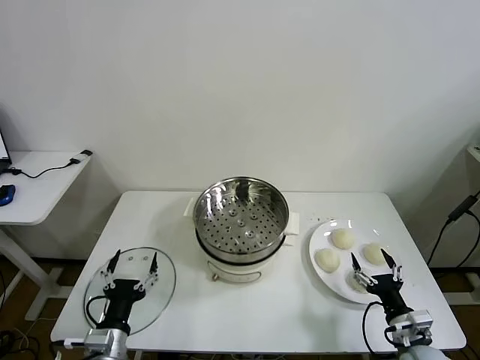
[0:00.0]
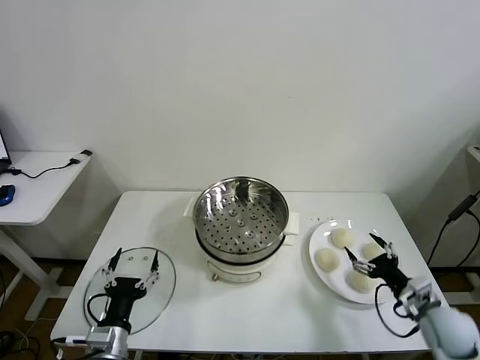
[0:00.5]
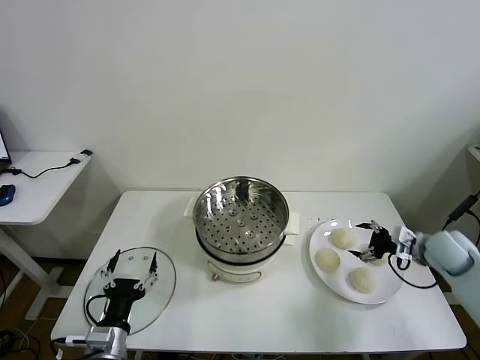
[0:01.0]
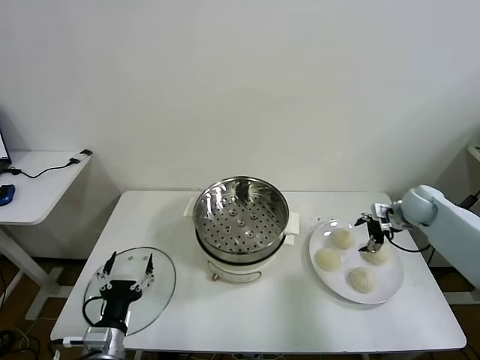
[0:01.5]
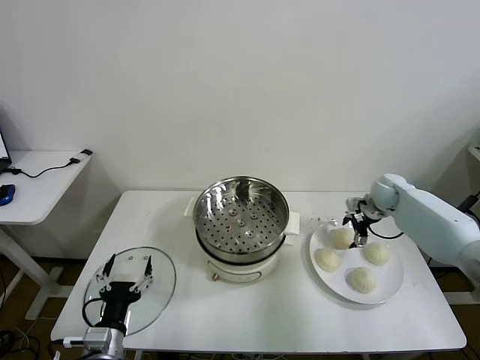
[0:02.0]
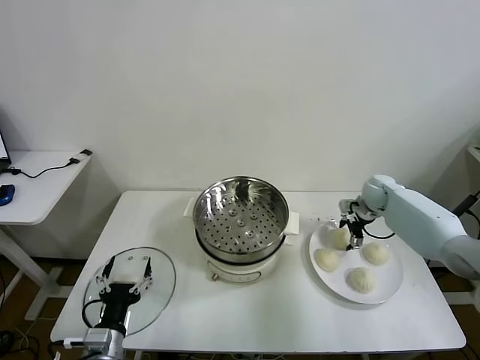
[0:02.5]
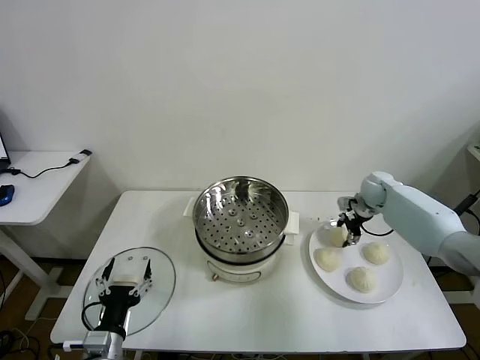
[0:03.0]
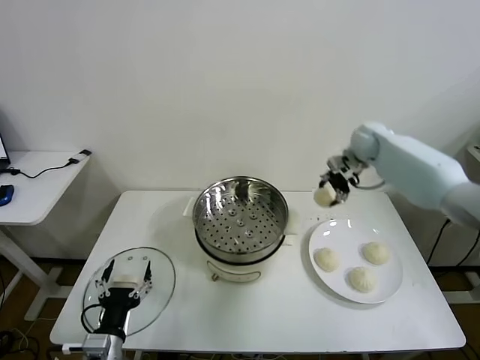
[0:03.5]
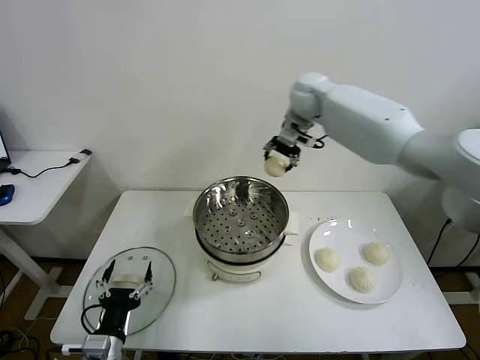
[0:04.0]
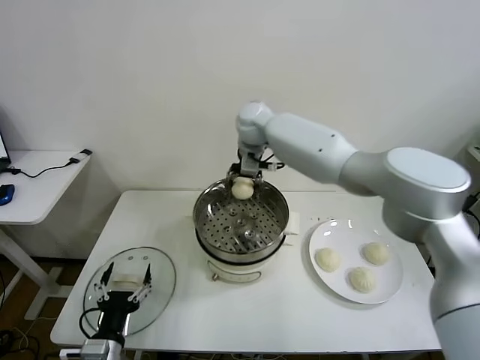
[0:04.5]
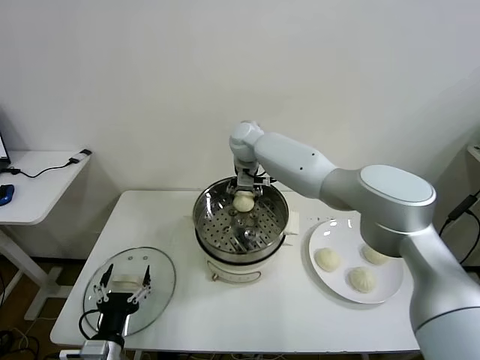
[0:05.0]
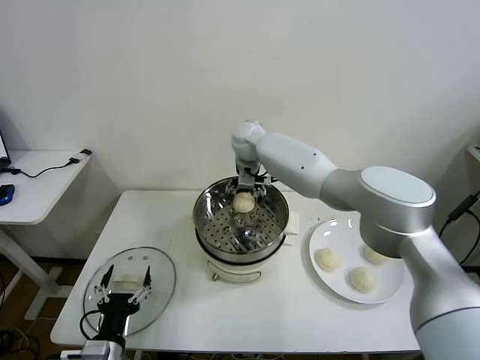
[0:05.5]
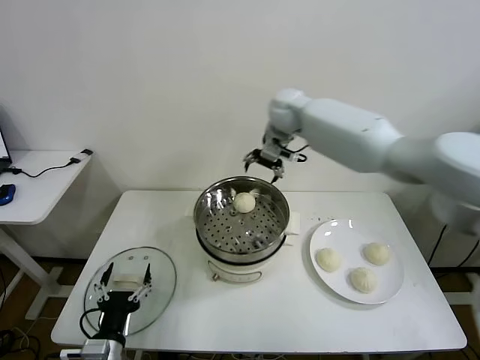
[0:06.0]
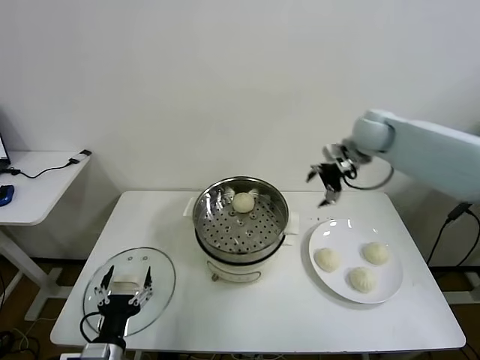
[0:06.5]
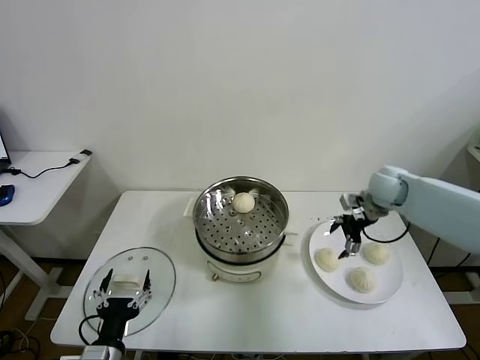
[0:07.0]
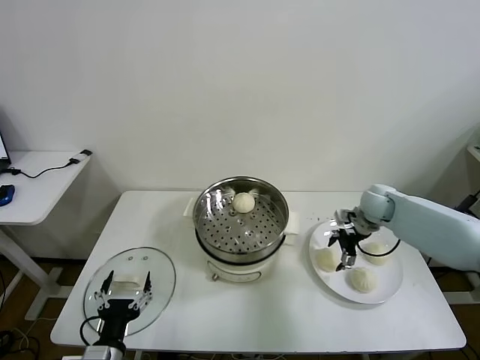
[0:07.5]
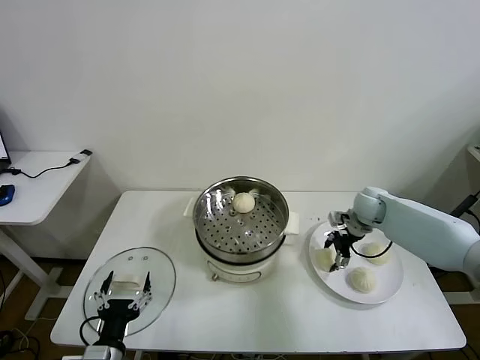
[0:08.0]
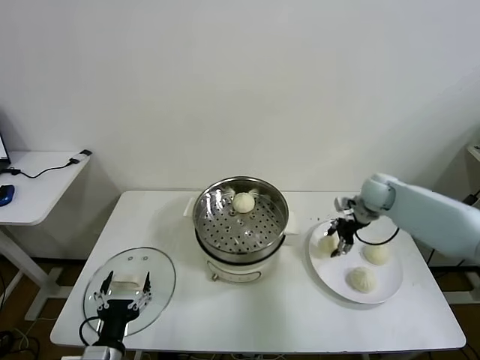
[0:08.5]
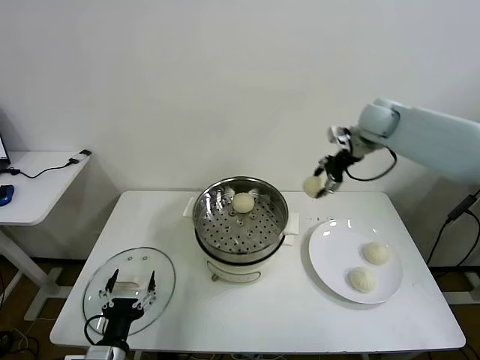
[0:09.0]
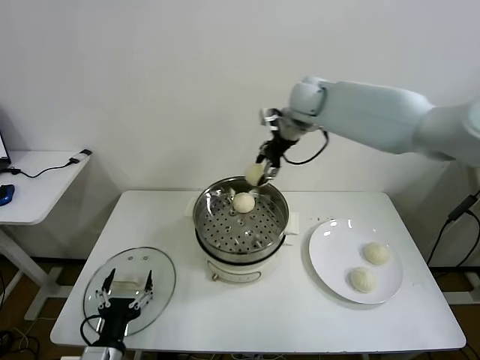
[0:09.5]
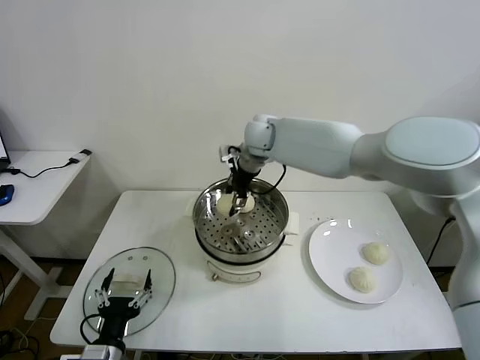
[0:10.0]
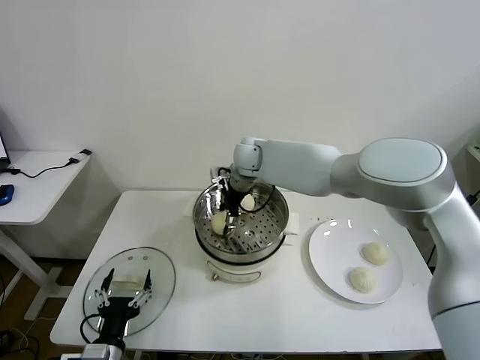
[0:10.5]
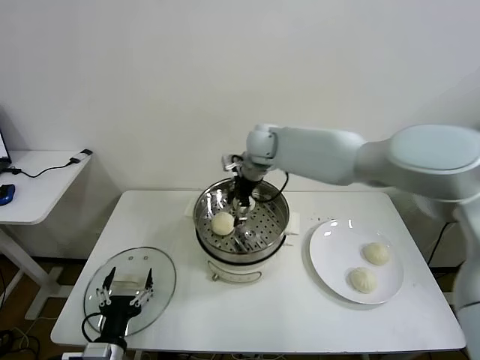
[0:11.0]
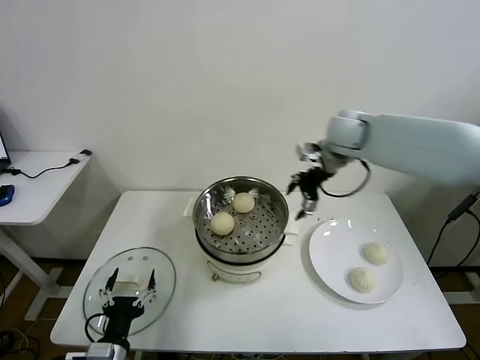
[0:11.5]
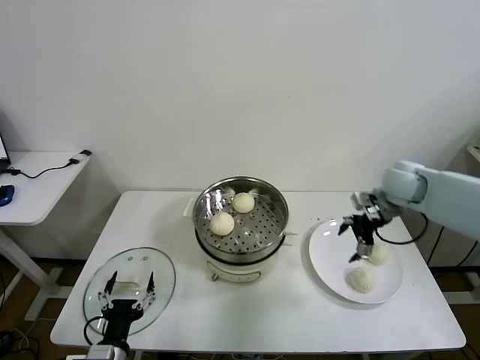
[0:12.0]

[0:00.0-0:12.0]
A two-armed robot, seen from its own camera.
Task of the whole recording: take steamed baozi put them in steamer then cover it.
Step, 0:00.0 to 0:03.0: Grasp the baozi in the plate with right gripper.
Step, 0:03.5 to 0:05.5: Place the baozi on the steamer with right gripper.
Step, 0:06.0 to 0:08.0: Grasp the baozi in the plate with right gripper.
Step, 0:08.5 to 0:11.0: Place the baozi on the steamer with right gripper.
0:02.0 to 0:04.0: The right gripper goes about 40 cm to the left and upward, and closes up.
0:04.0 to 0:06.0: The right gripper reaches roughly 10 cm to the left, then returns, and opens.
0:06.0 to 0:08.0: The right gripper is displaced downward and to the right by roughly 30 cm, and closes.
0:08.0 to 0:10.0: The right gripper moves to the left and upward, some 35 cm.
0:10.0 to 0:12.0: The right gripper shifts some 35 cm to the right, and opens up.

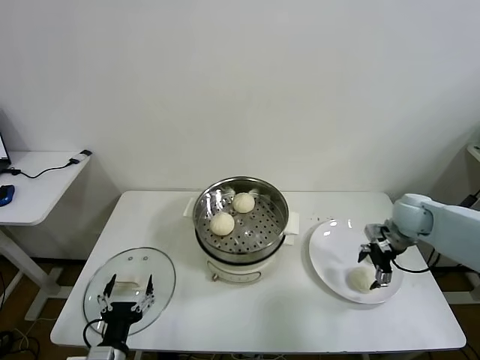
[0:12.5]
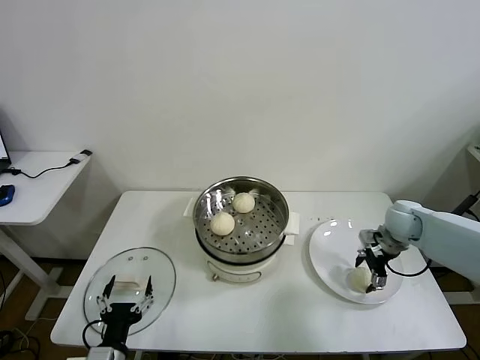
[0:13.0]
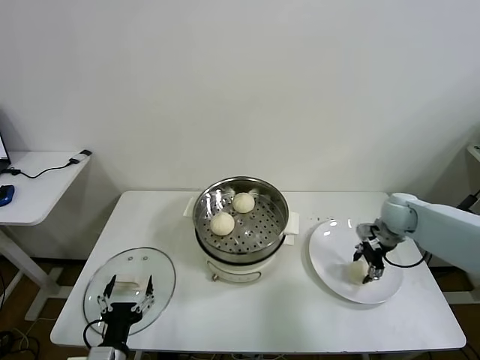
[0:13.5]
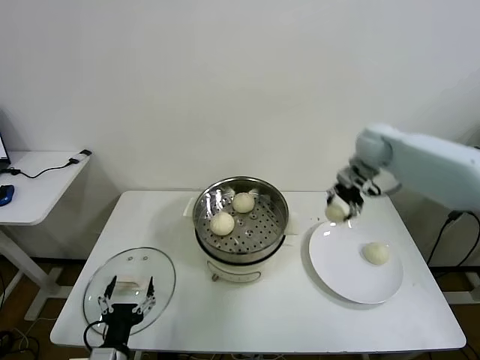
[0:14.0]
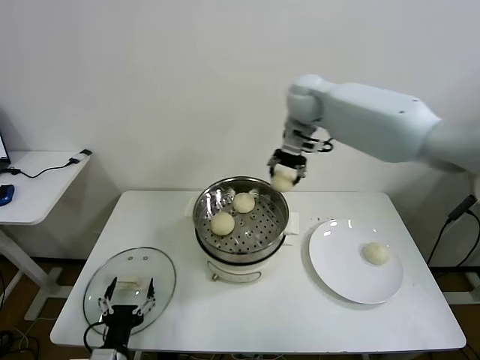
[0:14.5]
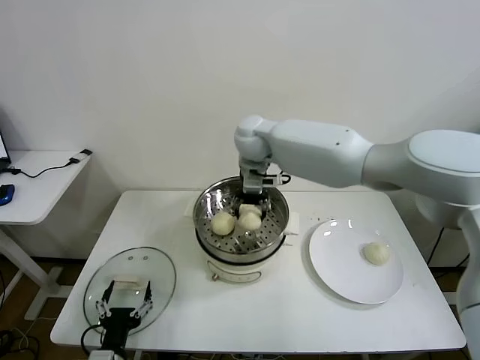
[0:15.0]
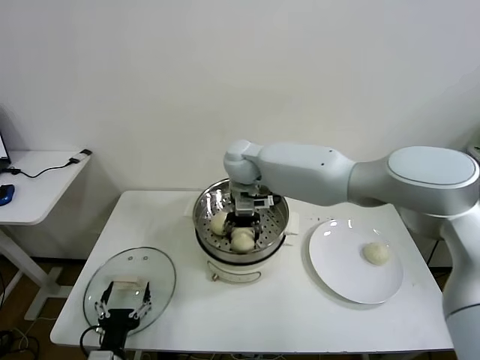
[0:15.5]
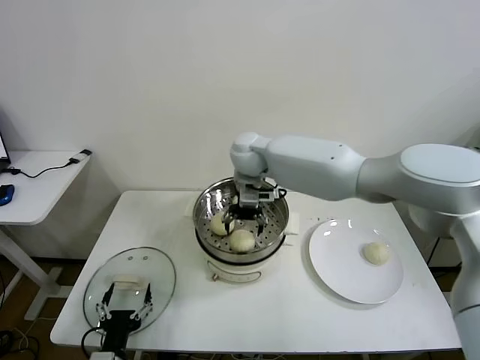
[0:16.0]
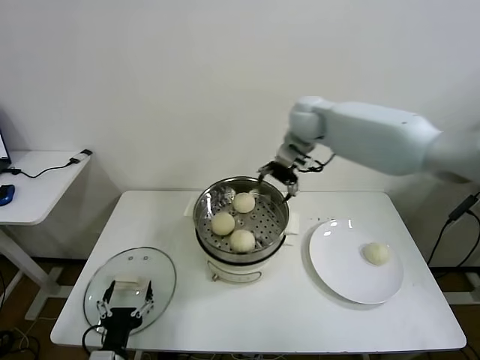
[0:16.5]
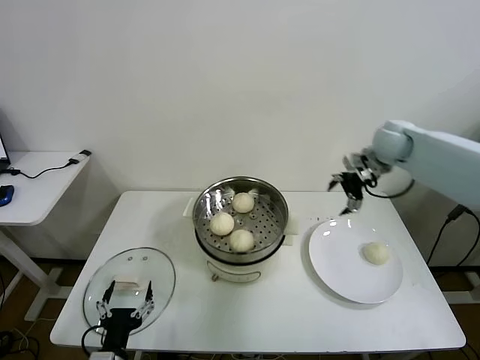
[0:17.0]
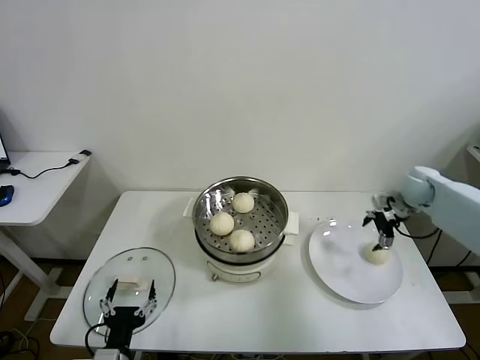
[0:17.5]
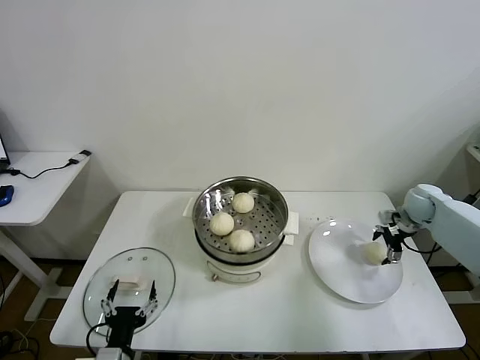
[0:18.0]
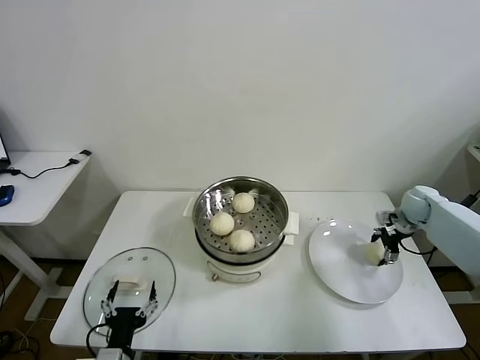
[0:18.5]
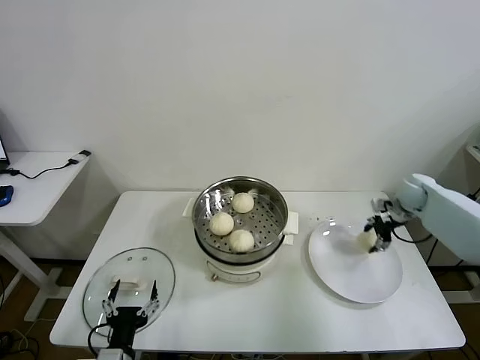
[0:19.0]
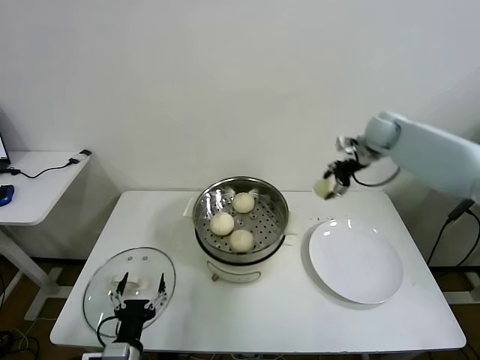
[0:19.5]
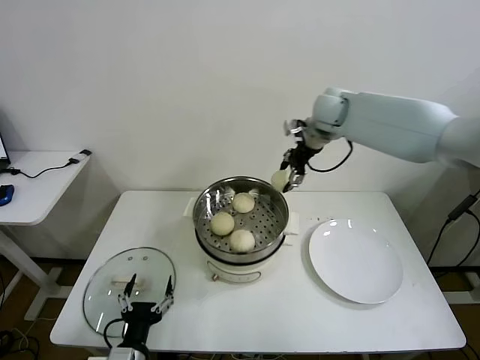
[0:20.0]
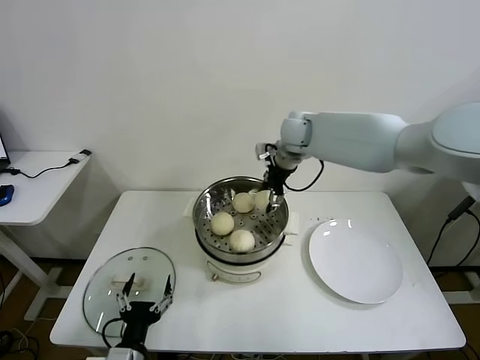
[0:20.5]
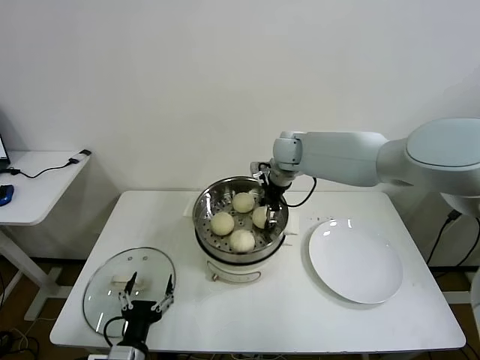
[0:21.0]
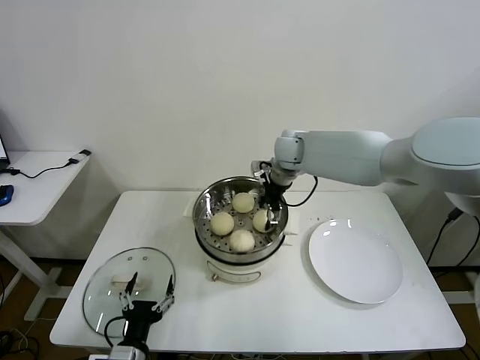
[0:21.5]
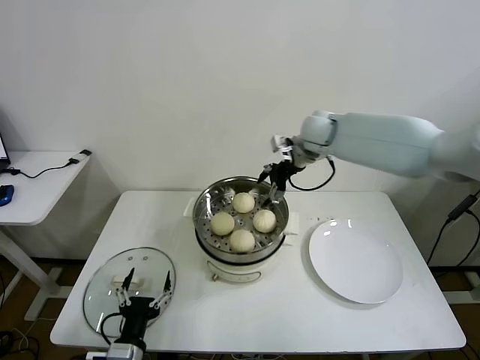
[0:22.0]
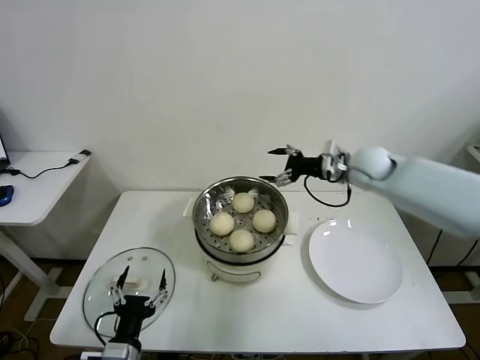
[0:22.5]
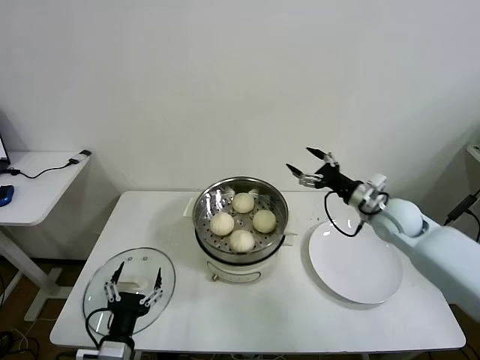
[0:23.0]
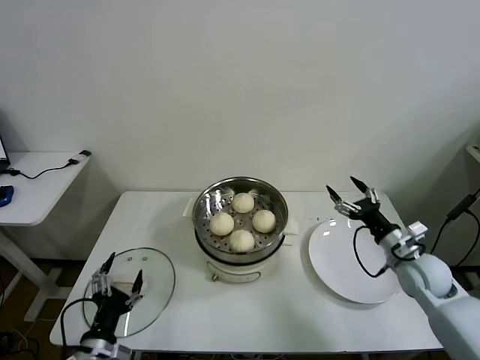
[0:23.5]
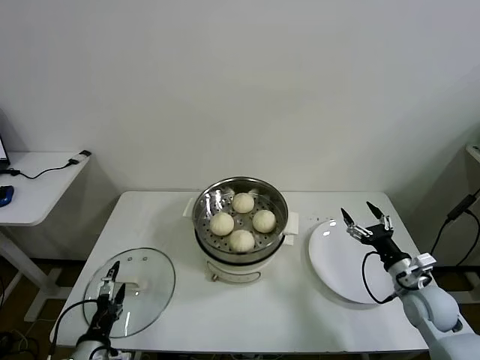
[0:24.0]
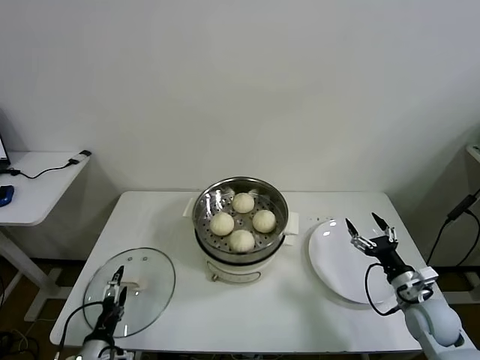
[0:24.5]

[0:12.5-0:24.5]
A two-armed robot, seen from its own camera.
Task of the whole recording: take steamed baozi put them in steamer then cover it.
Step, 0:13.5 to 0:15.5: Place the baozi on the steamer with right gripper.
Step, 0:16.0 to 0:18.5: Grasp the baozi in the plate with right gripper.
Step, 0:19.0 to 0:21.5: Place the baozi on the steamer with right gripper.
0:12.5 to 0:14.5: The right gripper is displaced to the left, upward and forward by approximately 40 cm, and closes its fingers.
0:14.5 to 0:16.5: The right gripper reaches some 10 cm to the left, then returns, and opens up.
0:16.5 to 0:18.5: The right gripper is displaced to the right and downward by approximately 40 cm, and closes its fingers.
0:18.5 to 0:20.5: The right gripper moves to the left and upward, approximately 40 cm, and closes up.
0:20.5 to 0:22.5: The right gripper travels to the right and backward by roughly 15 cm, and opens.
0:22.5 to 0:24.5: The right gripper moves backward, downward and to the right, about 35 cm. Meanwhile the left gripper travels to the left and downward by some 10 cm.

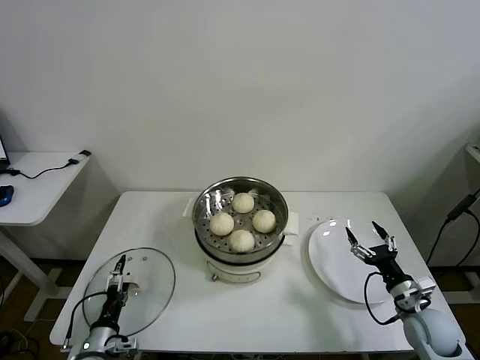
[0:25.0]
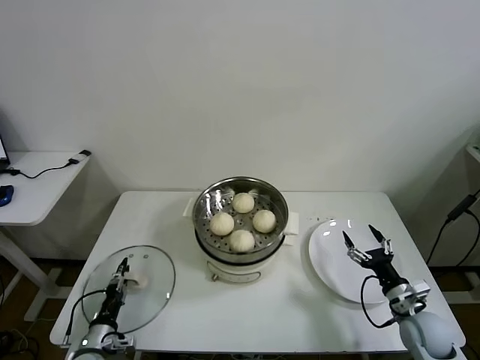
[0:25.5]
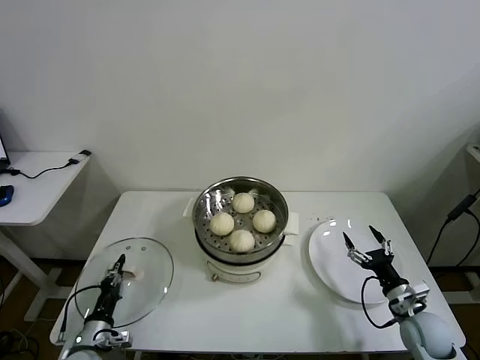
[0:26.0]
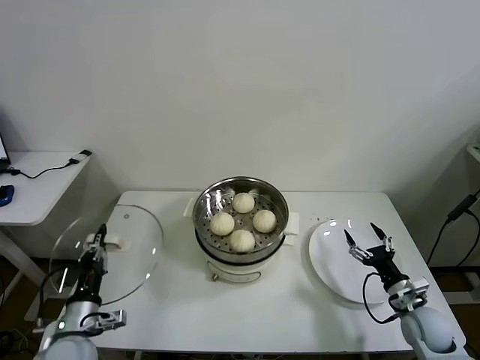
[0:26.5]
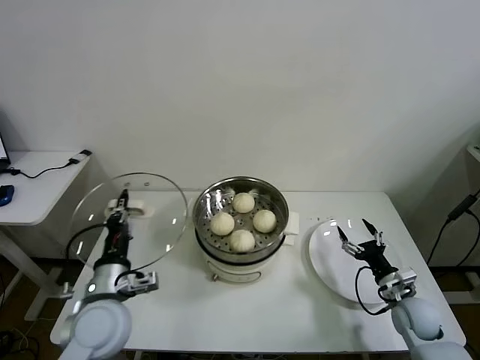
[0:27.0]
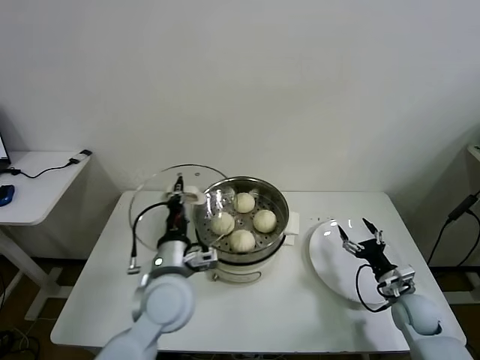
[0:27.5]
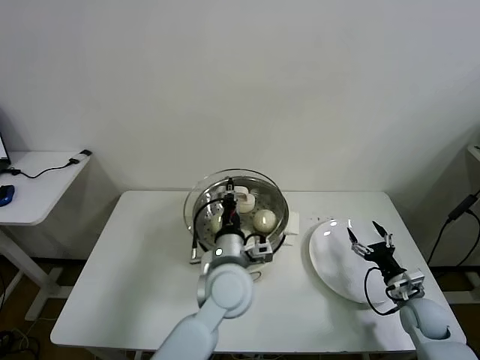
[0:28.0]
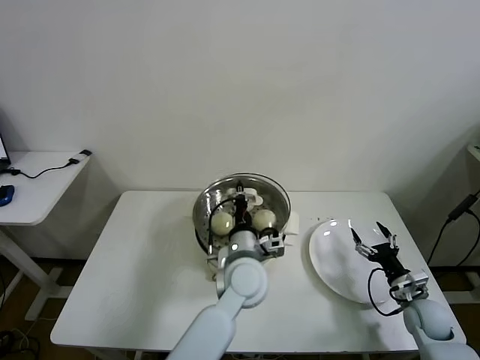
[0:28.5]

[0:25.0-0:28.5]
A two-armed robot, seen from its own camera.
Task of the whole recording: take steamed baozi put them in steamer then cover it.
0:25.0 to 0:27.0: The left gripper goes roughly 20 cm upward and to the right, and closes.
0:27.0 to 0:28.5: The left gripper is displaced to the right by approximately 25 cm.
